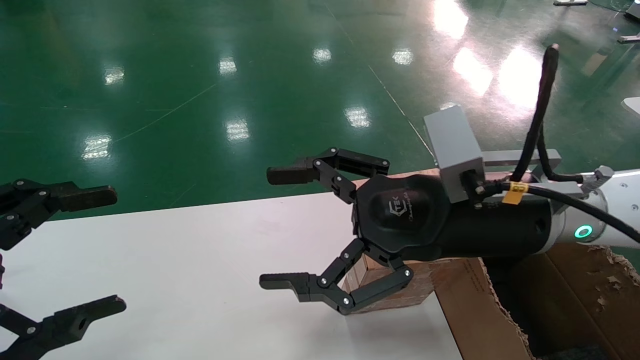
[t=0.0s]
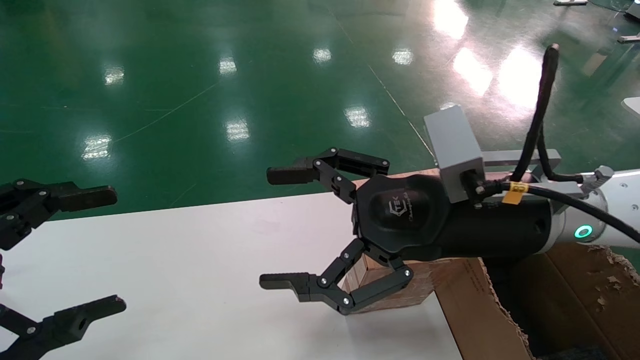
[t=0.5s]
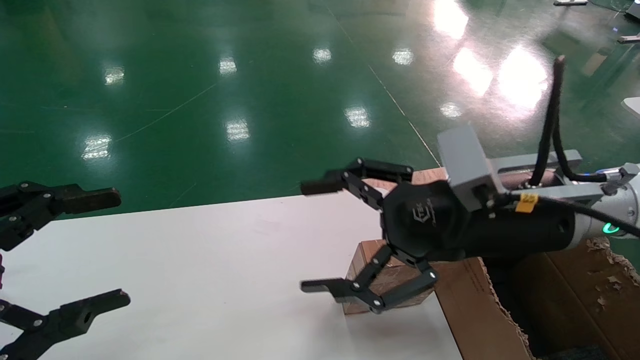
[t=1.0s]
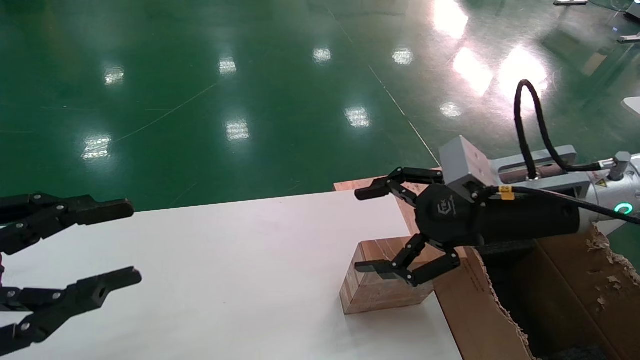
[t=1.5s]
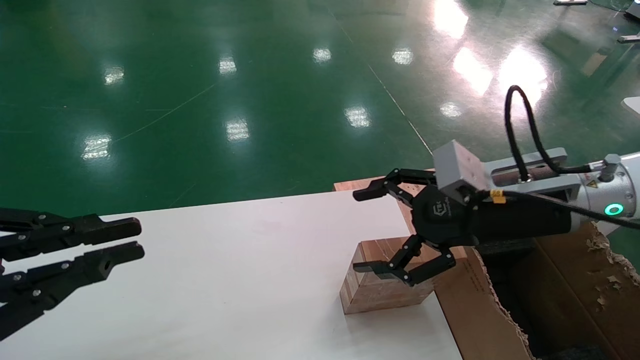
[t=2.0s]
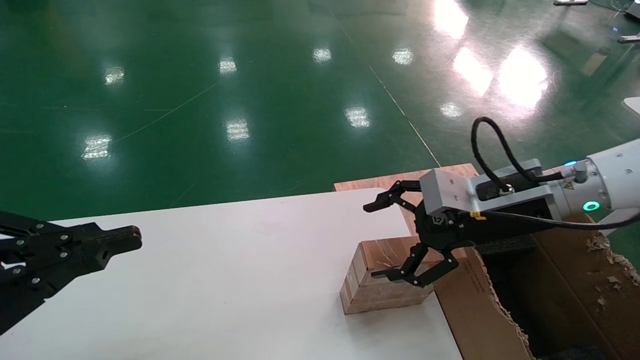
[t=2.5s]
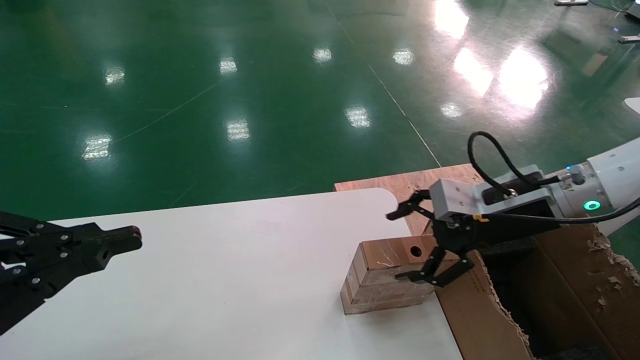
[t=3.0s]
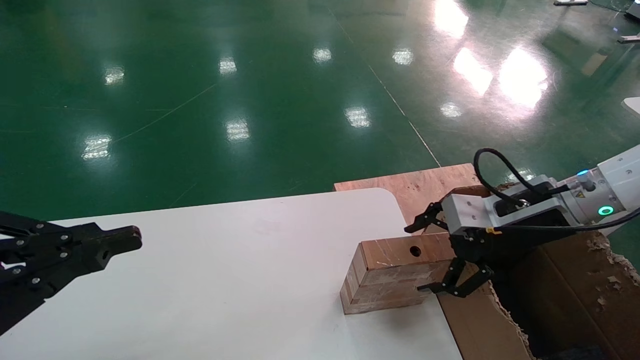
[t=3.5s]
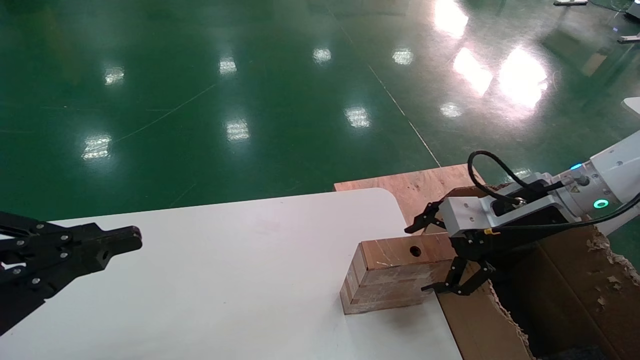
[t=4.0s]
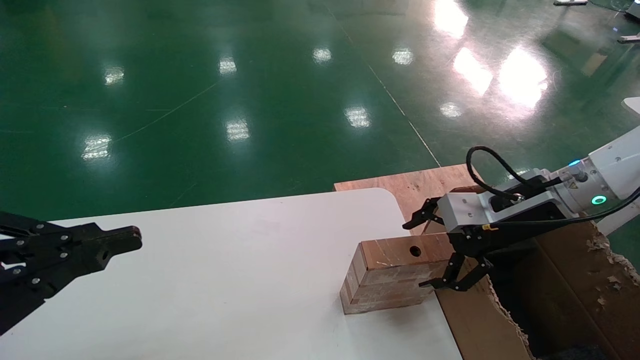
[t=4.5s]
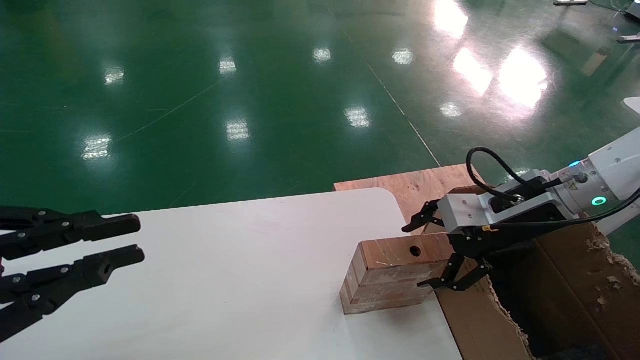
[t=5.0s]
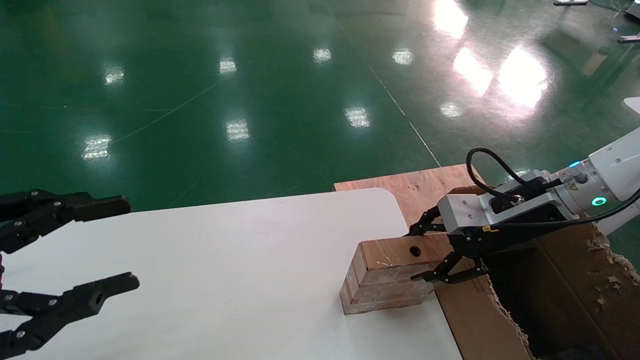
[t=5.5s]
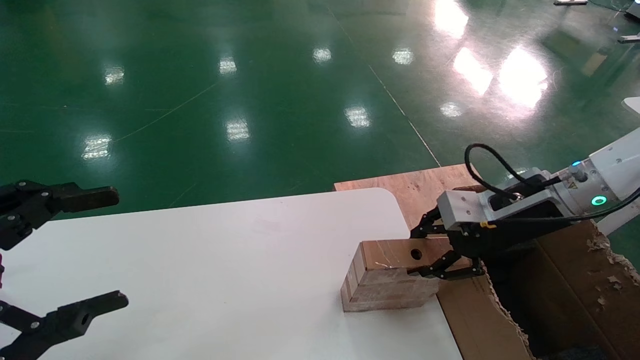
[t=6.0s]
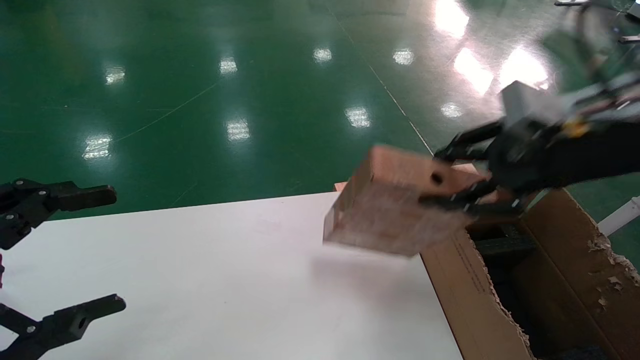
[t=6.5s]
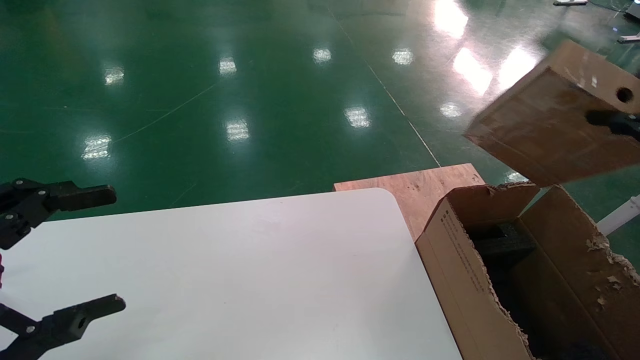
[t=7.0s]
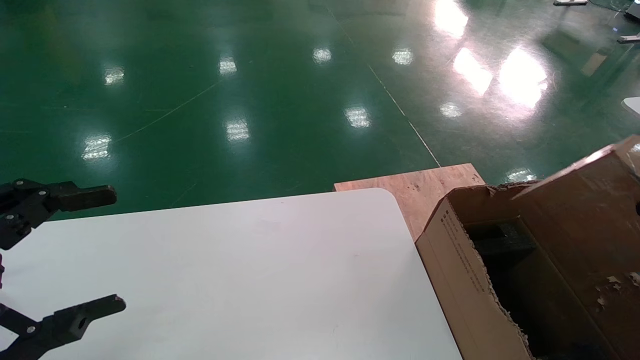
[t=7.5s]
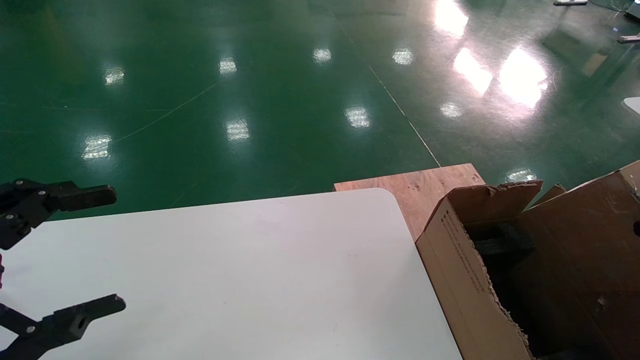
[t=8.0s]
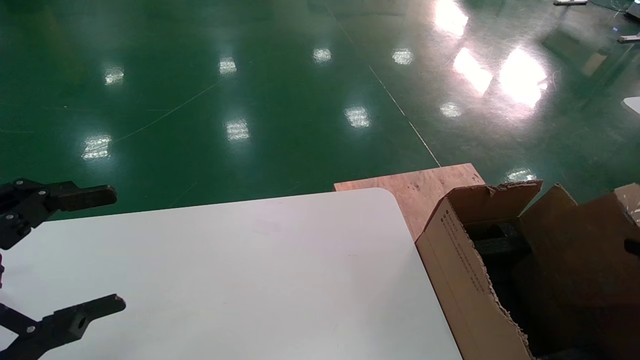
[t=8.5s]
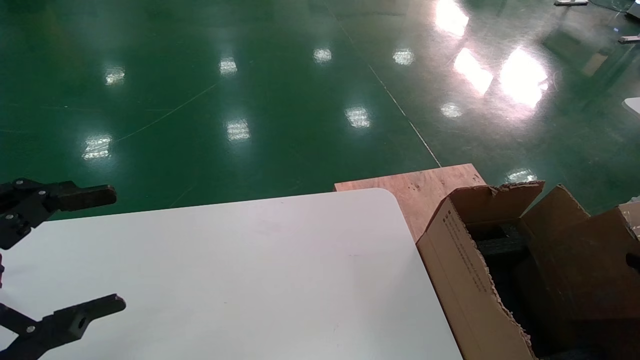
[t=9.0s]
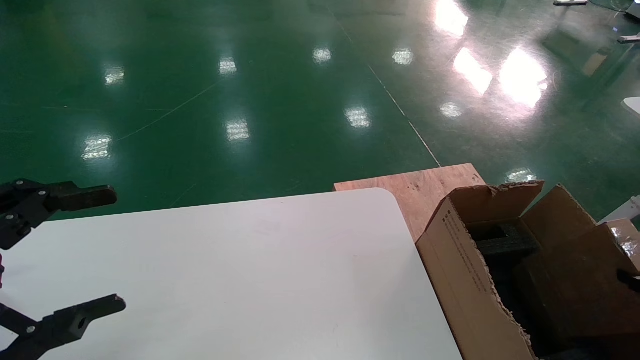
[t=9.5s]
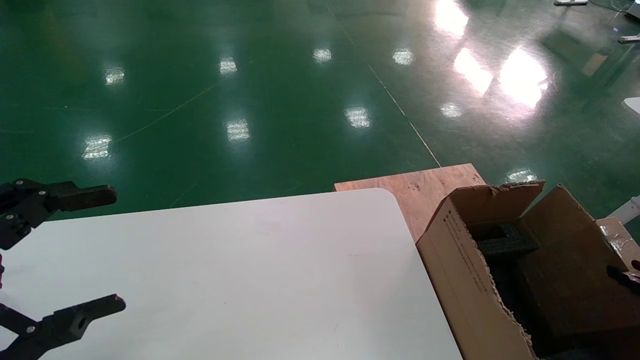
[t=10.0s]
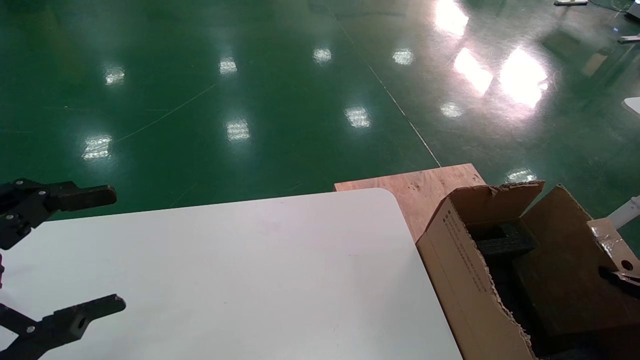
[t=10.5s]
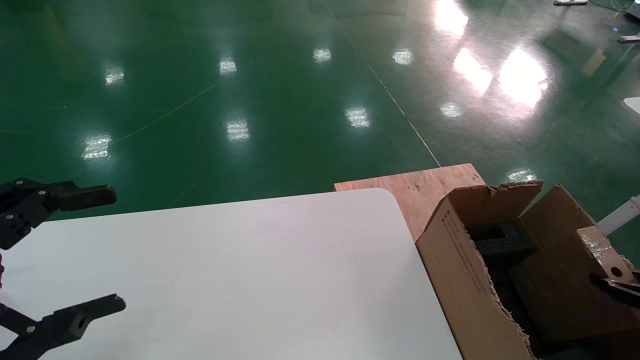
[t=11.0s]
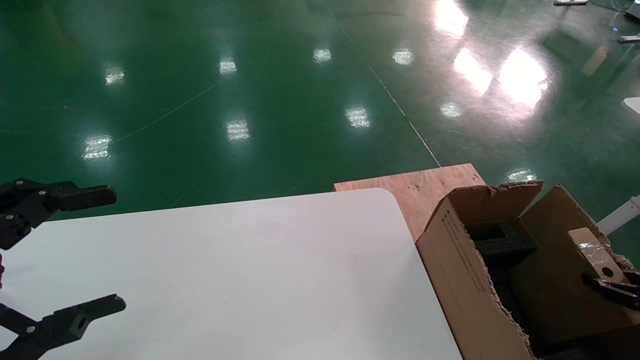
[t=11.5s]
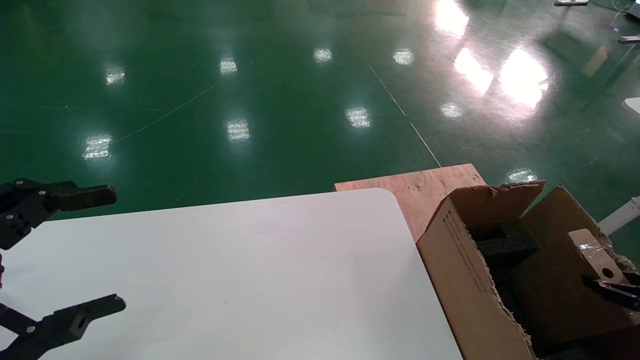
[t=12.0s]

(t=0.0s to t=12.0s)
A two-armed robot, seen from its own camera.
Task of the whole recording: put the box on the table into the big box.
Step, t=1.5s - t=5.5s: Pick up the mouse and the power cord paper box.
t=0.0s - t=2.0s: The left gripper closes, while the right gripper is displaced to the right by approximately 5 cm.
t=2.0s - t=4.0s: The right gripper shifts approximately 5 cm to the right.
t=4.0s - t=6.0s: The left gripper opens up, while the right gripper closes.
t=6.0s - t=8.0s: The right gripper shifts some 30 cm backward and to the right.
t=8.0s - t=10.0s: The right gripper shifts some 10 cm downward.
t=10.0s - t=12.0s: The grippers move only a little.

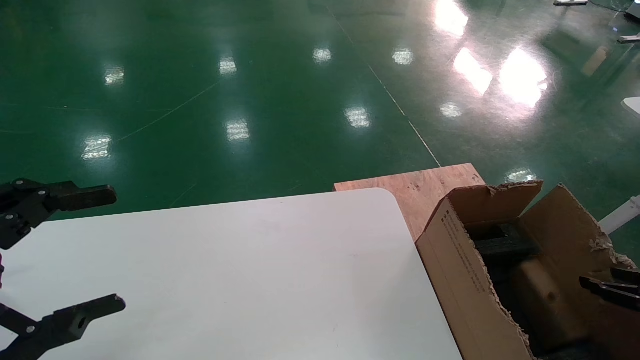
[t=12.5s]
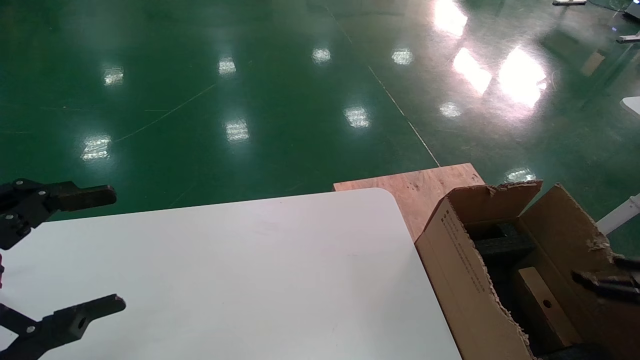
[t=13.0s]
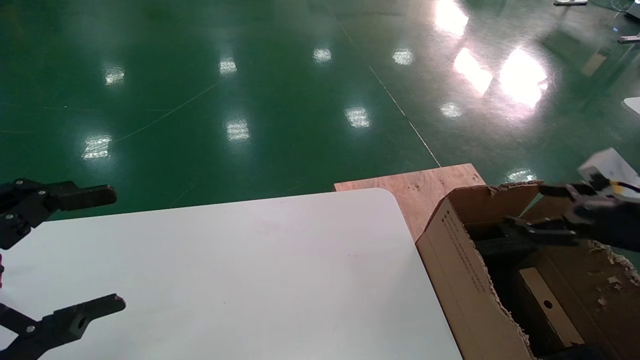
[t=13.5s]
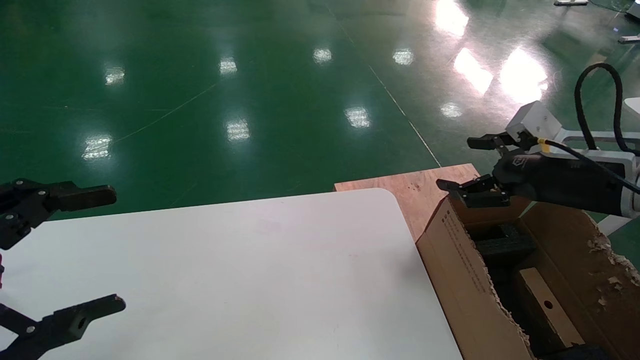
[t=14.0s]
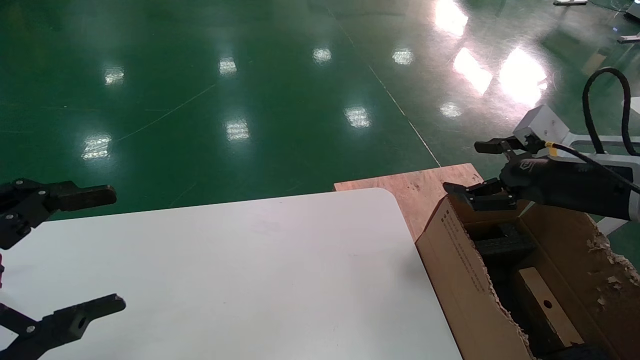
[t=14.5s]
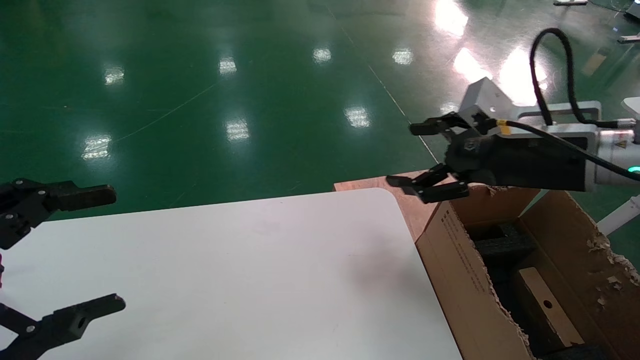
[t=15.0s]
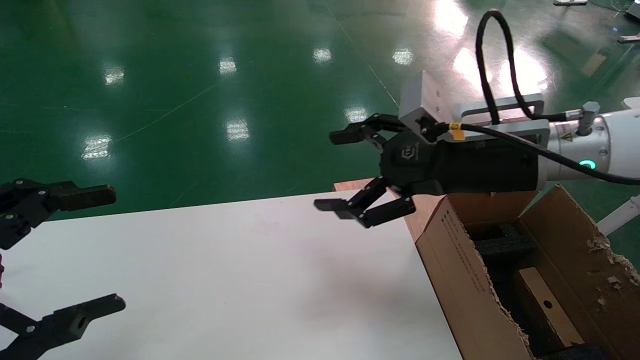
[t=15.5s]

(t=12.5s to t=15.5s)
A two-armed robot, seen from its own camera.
Task of the whole recording: put the box on the table into the big box.
t=12.5s - t=14.0s: The right gripper moves to the left, upward and forward, roughly 25 cm, and opens up.
t=14.0s - t=15.5s: The right gripper moves to the left, roughly 15 cm.
